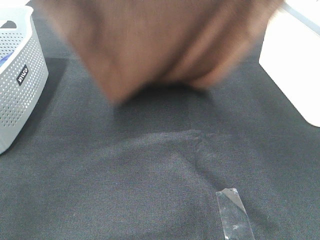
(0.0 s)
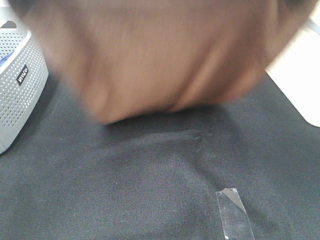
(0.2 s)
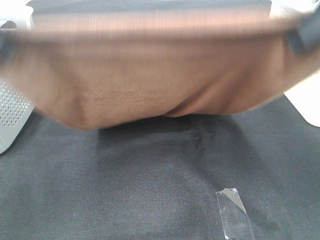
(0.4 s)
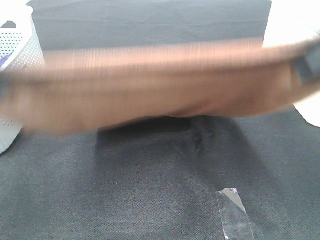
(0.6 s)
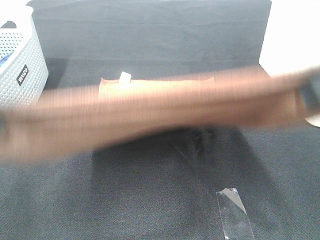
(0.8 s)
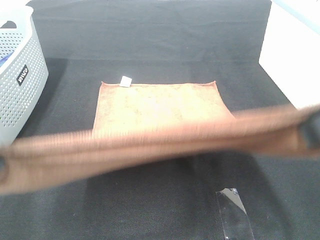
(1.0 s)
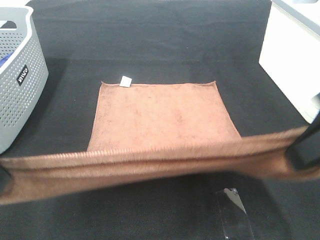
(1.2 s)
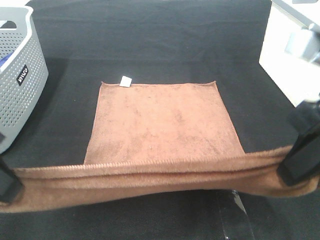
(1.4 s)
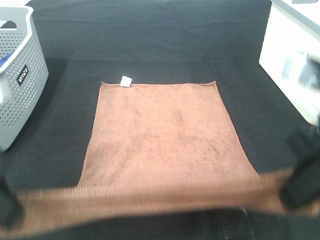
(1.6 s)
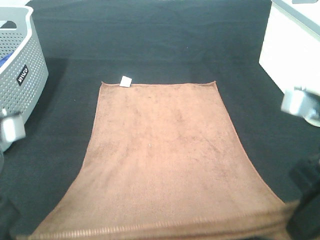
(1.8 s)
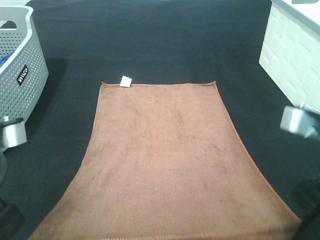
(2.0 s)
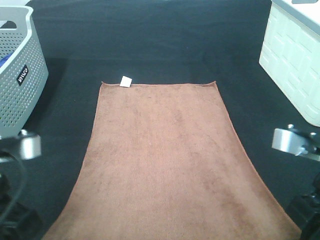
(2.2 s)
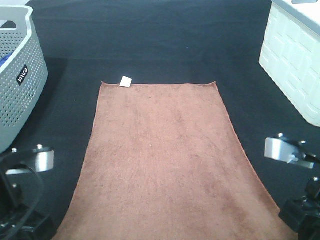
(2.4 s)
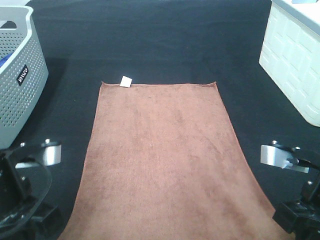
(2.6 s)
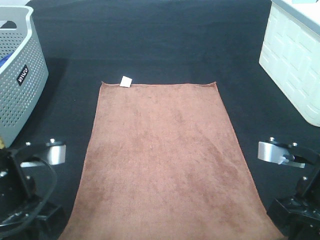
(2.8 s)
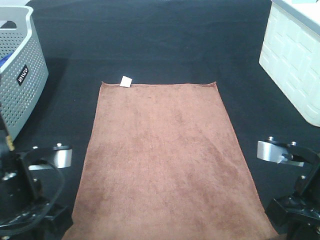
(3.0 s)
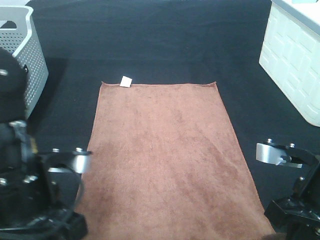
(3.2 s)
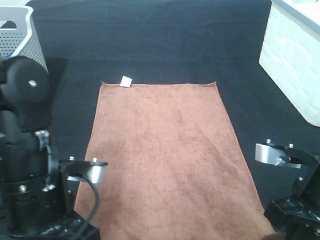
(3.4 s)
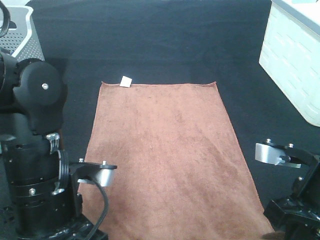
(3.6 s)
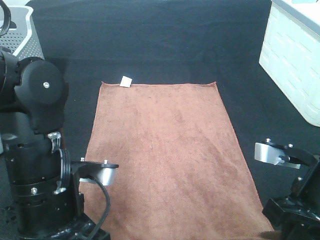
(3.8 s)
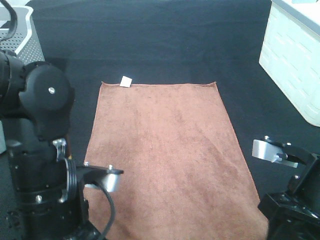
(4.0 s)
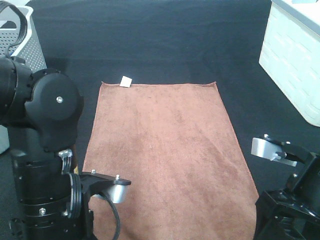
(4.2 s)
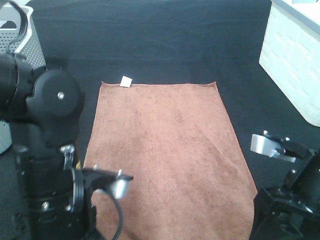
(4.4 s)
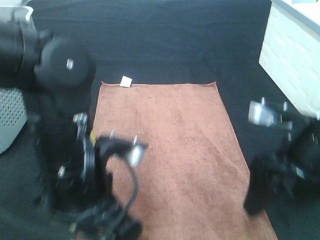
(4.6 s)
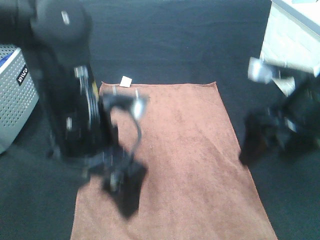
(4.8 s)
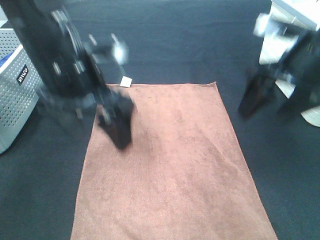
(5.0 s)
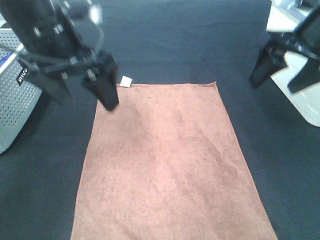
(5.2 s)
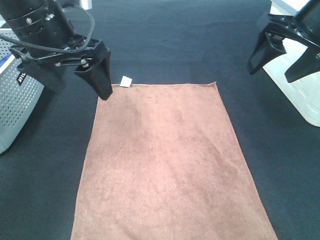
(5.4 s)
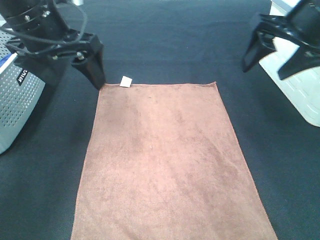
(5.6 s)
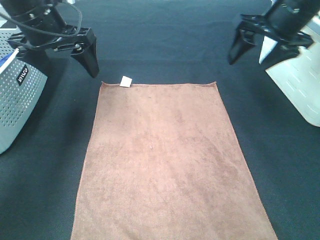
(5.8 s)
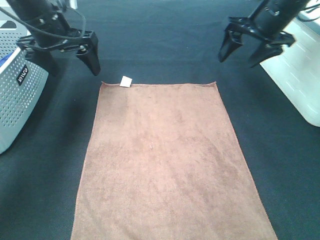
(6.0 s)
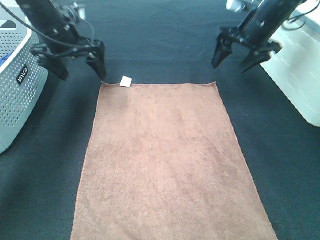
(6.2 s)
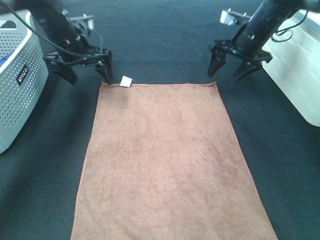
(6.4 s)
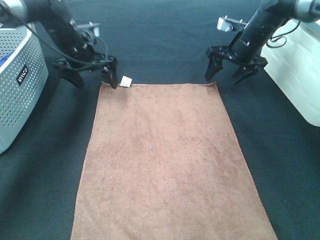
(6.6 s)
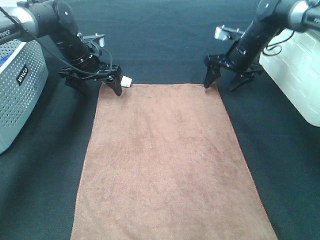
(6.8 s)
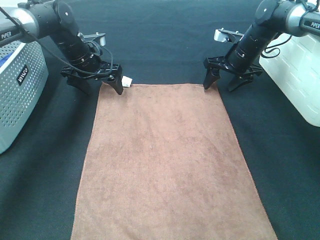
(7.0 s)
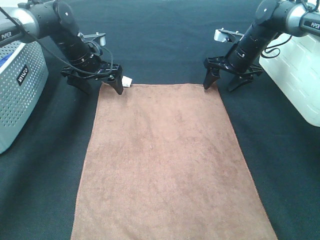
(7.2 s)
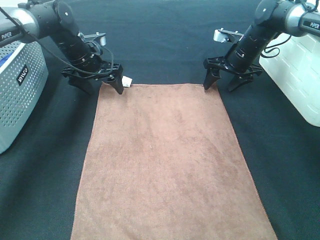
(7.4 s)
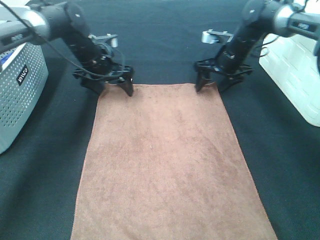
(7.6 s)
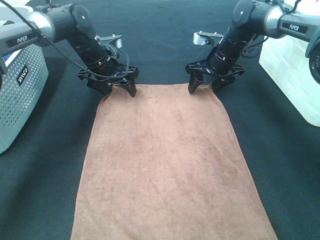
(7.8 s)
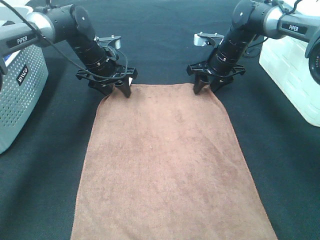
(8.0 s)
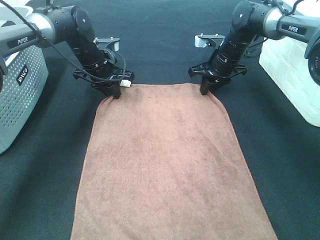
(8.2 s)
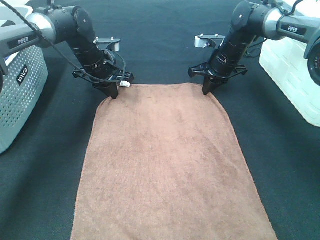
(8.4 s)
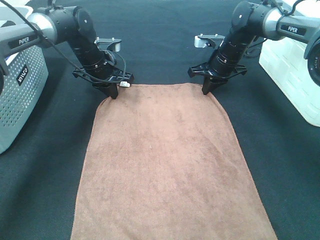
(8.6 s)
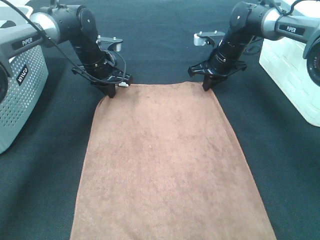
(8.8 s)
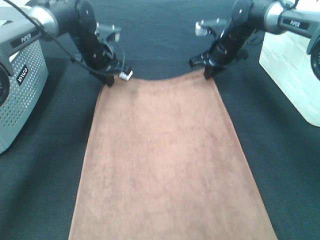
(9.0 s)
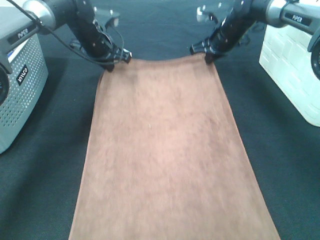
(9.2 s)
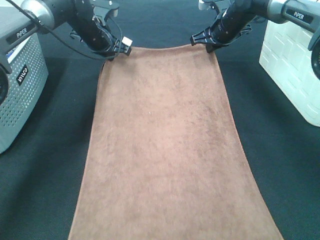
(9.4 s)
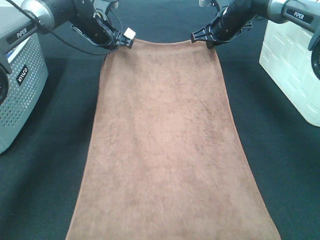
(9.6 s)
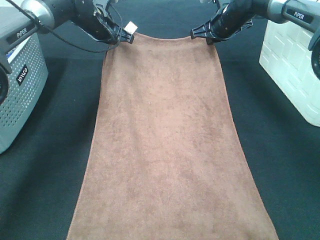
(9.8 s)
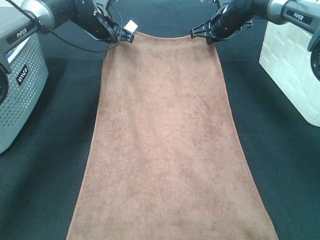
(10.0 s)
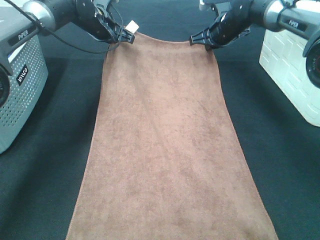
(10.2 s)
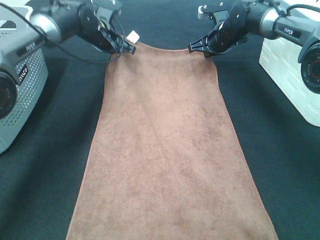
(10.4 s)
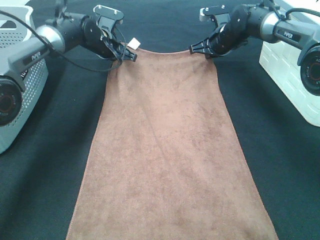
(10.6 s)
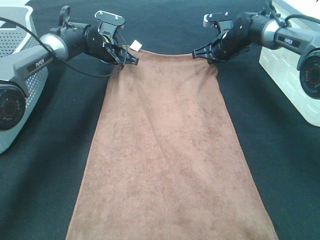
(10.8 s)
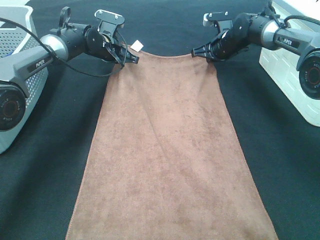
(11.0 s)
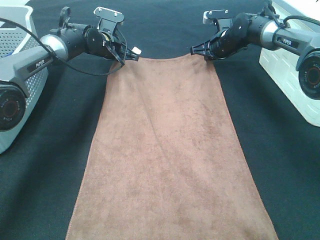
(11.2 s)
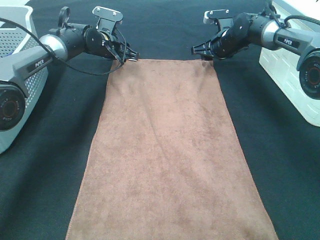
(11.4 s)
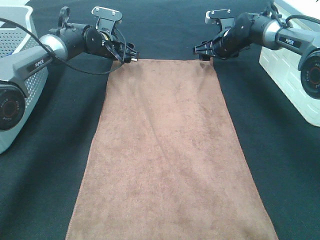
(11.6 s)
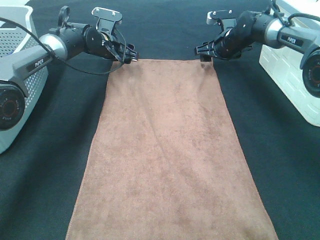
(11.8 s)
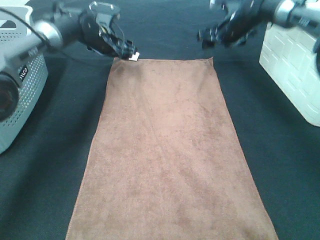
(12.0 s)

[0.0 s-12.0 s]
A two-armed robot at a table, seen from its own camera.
Task of the whole recording: Remove the towel and place it.
Step, 0.4 to 6.0 s: Left hand:adjust the brown towel.
Step, 0.4 to 6.0 s: Right hand:adjust the brown towel.
0.0 to 1.6 s: Both grippers move downward and backward, some 20 cm.
1.6 to 3.0 s: The two grippers go roughly 10 cm downward.
3.0 to 4.4 s: The right gripper opens its fingers, while the left gripper goes approximately 5 cm to the right, and opens up.
4.4 to 6.0 s: The grippers both shift forward by about 30 cm.
6.0 to 7.6 s: The left gripper goes roughly 15 cm downward, forward and to the right. The right gripper travels downward and forward by some 15 cm.
7.6 to 9.0 s: The right gripper closes up; the left gripper closes up.
10.4 to 12.0 s: The left gripper opens its fingers. The right gripper opens up.

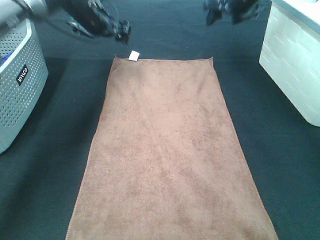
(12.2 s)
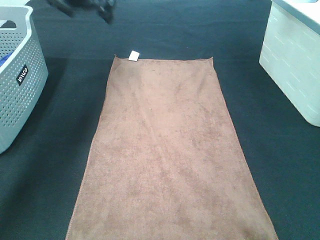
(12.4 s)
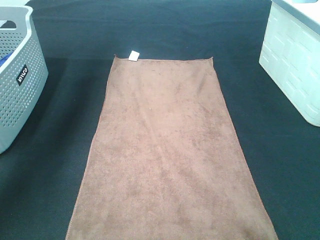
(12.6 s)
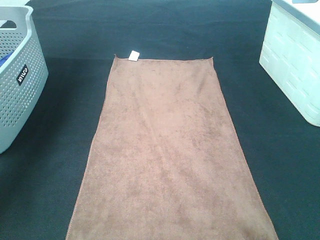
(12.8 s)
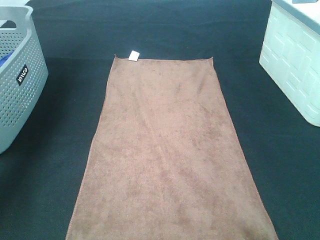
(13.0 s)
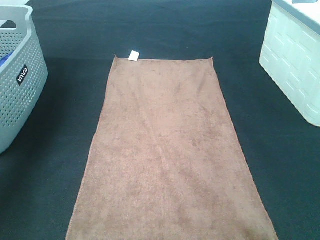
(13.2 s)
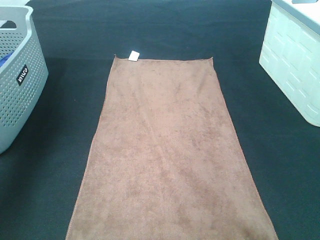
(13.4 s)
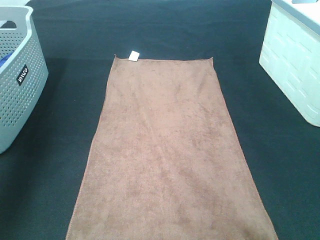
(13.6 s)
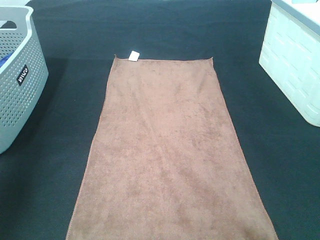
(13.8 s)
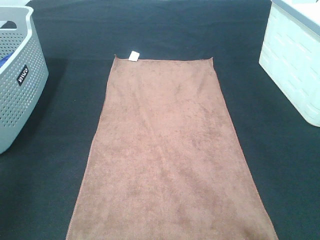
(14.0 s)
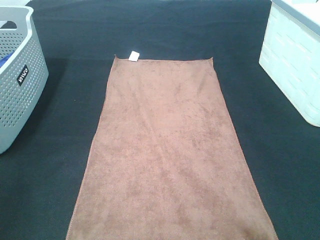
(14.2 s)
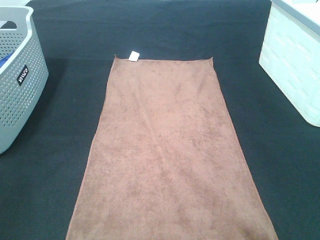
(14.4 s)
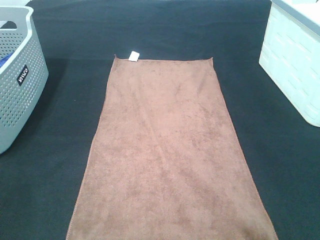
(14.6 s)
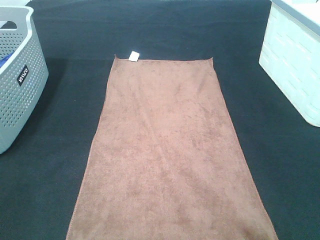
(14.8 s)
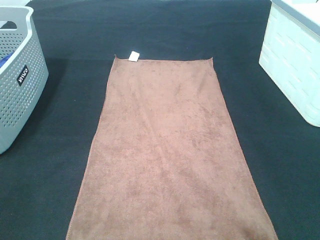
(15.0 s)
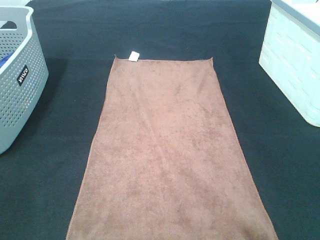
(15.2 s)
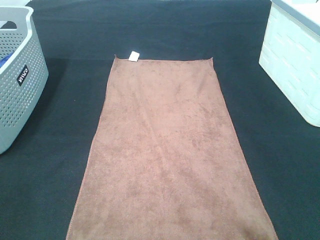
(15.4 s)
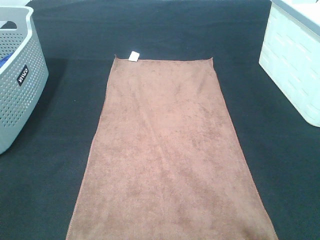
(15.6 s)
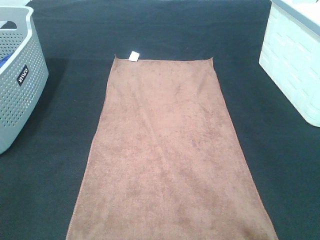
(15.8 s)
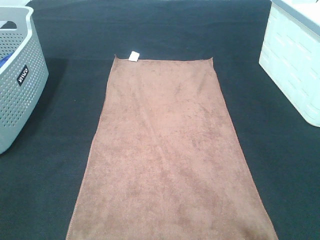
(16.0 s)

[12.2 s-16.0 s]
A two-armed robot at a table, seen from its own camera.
Task of the whole recording: Remove the towel and place it.
12.2 to 13.4 s: The right gripper travels backward and upward by roughly 35 cm. Meanwhile the left gripper goes approximately 30 cm backward, upward and to the left.
13.4 to 14.8 s: The grippers both shift backward by some 30 cm.

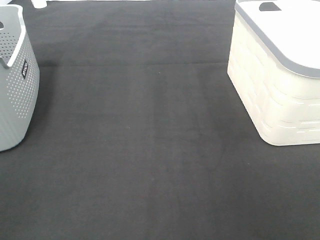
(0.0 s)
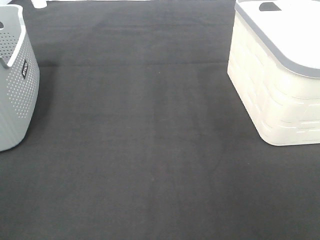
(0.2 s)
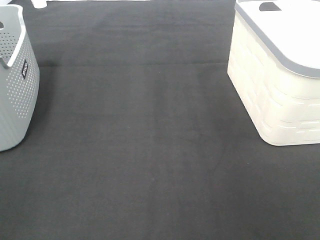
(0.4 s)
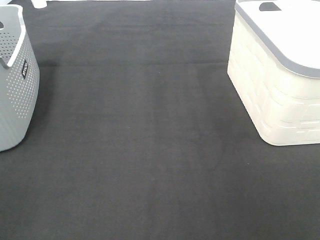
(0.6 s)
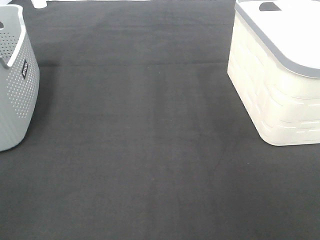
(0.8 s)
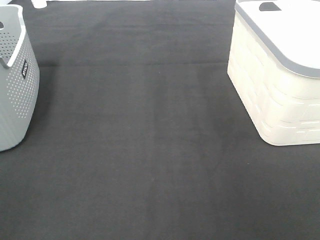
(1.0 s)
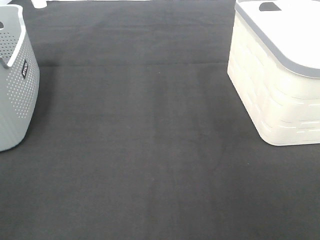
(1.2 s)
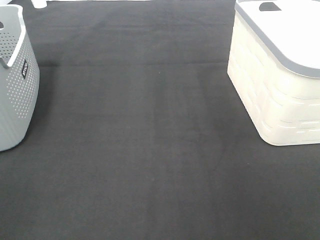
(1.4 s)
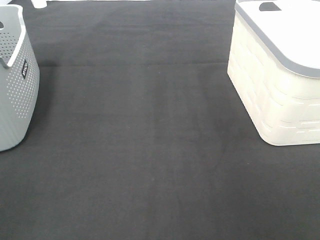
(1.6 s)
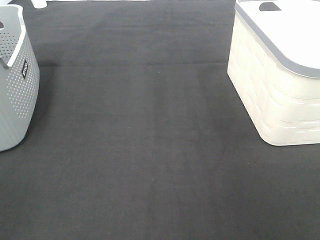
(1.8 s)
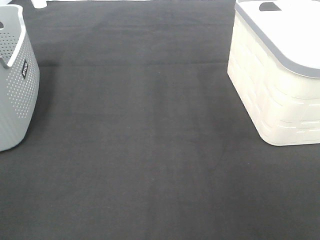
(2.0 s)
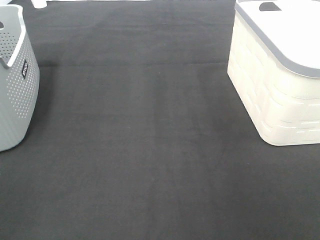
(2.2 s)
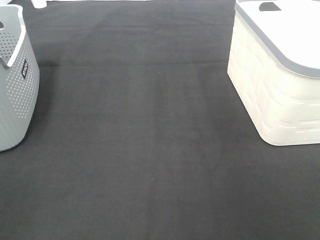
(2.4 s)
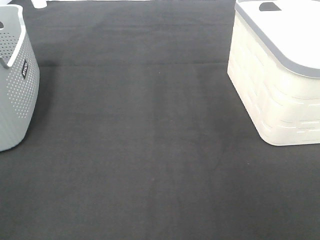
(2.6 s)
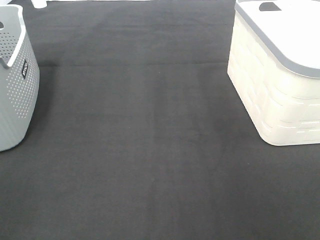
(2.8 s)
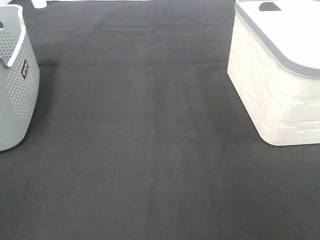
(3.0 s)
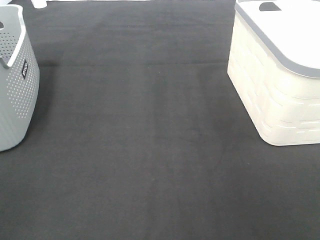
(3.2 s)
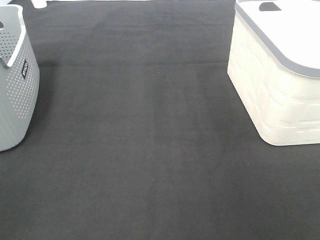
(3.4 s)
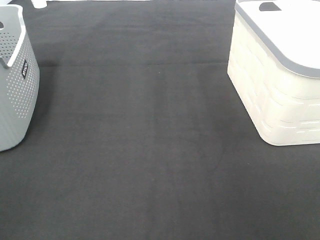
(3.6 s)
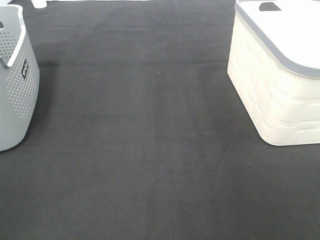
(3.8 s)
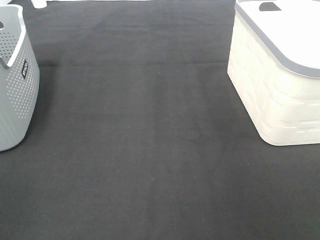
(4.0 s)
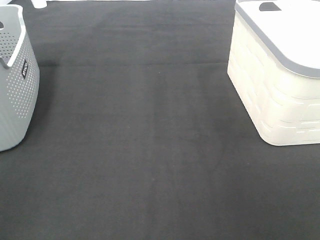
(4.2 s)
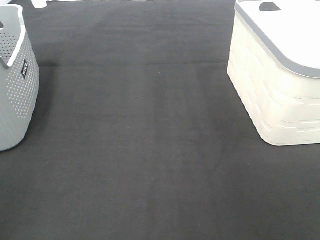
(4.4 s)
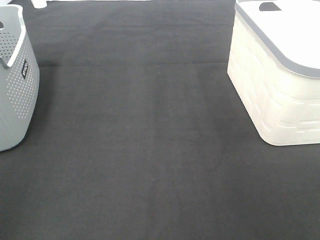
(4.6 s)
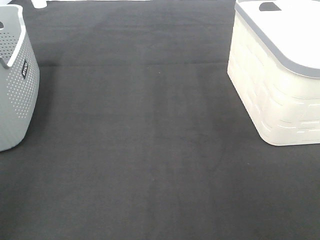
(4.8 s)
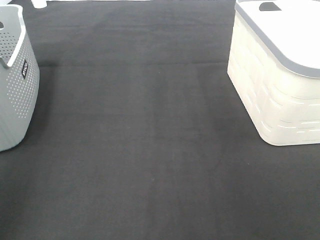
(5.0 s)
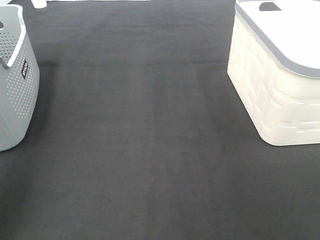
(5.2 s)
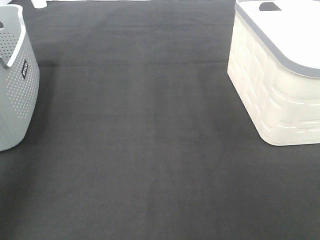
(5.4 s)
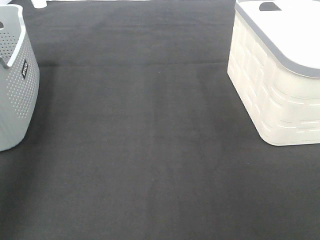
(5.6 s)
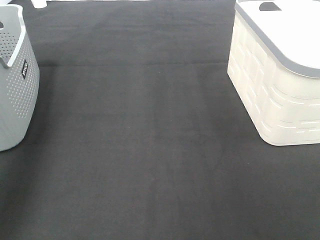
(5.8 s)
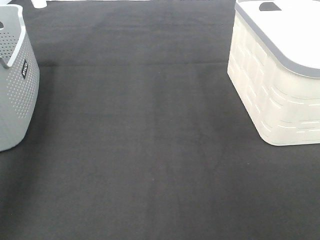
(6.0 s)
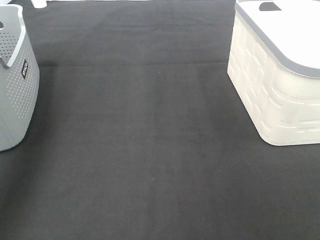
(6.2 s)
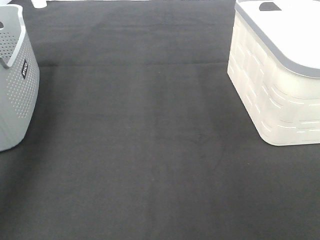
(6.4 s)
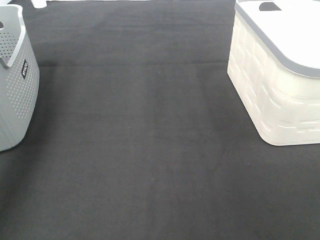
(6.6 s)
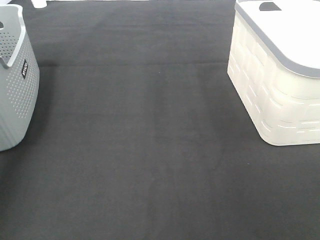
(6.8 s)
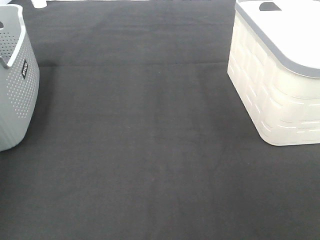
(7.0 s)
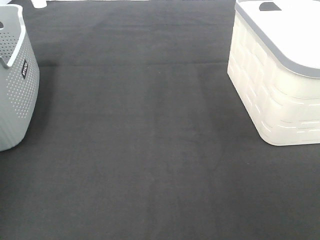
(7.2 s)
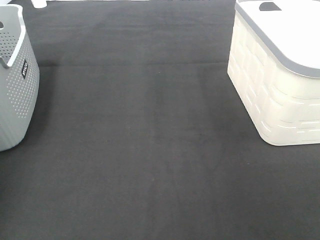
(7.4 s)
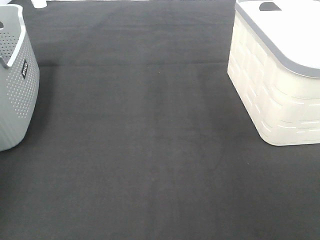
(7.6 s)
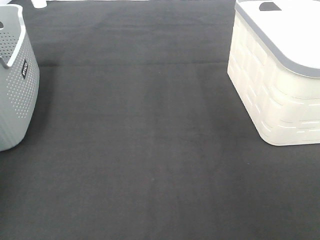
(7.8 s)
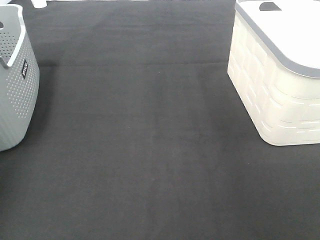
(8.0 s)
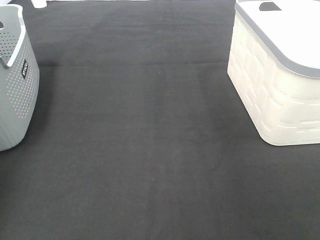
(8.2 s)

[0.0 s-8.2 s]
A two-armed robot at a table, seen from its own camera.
Task of the whole recording: Remove the towel and place it.
0.0 to 3.2 s: Both grippers stay about where they are.
6.6 to 8.2 s: The left gripper moves downward and forward, approximately 15 cm.
